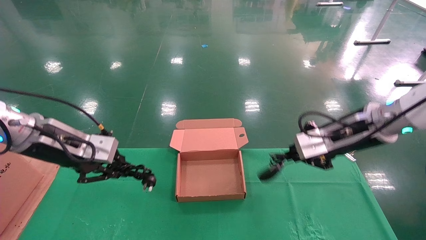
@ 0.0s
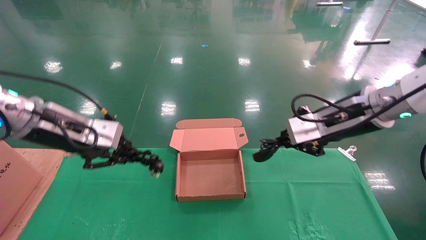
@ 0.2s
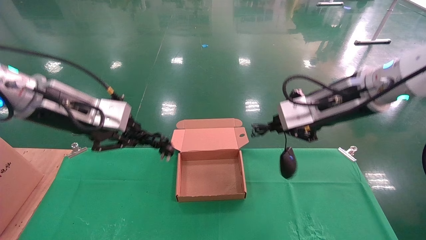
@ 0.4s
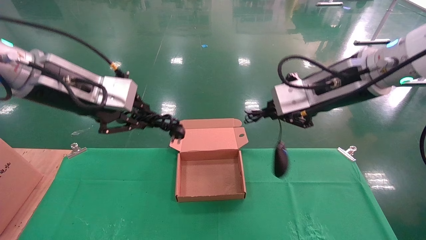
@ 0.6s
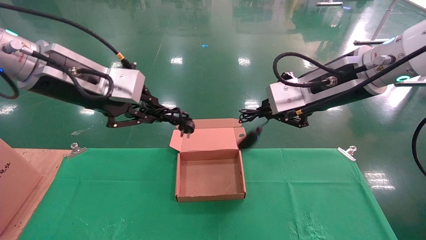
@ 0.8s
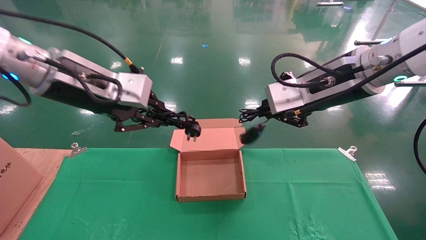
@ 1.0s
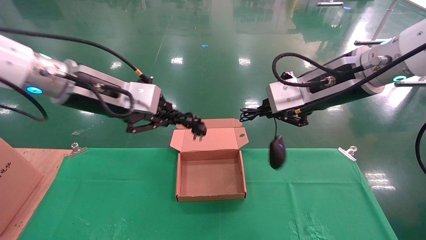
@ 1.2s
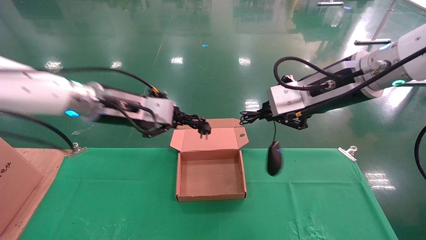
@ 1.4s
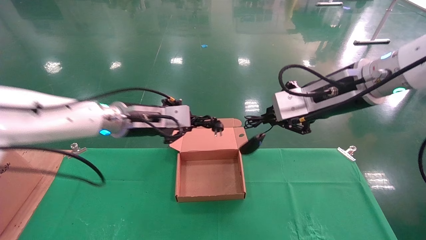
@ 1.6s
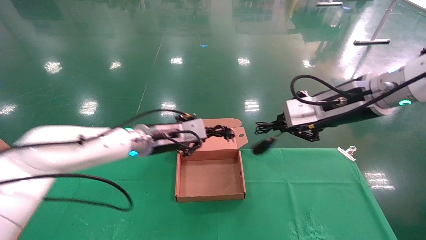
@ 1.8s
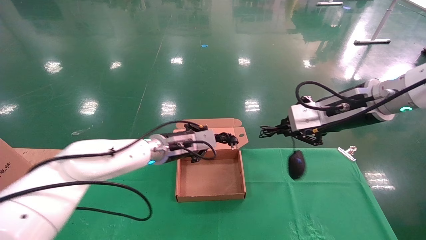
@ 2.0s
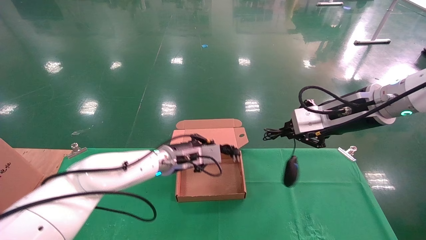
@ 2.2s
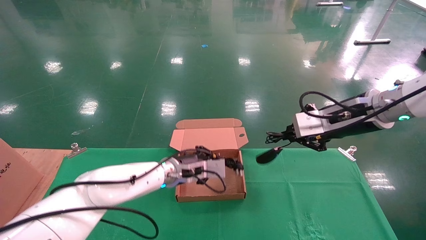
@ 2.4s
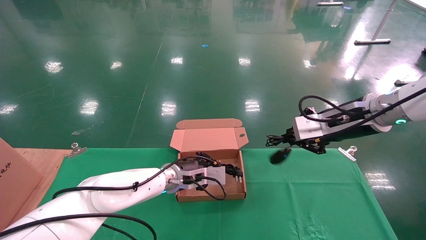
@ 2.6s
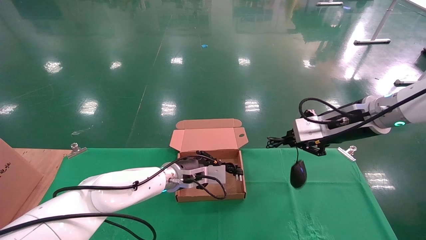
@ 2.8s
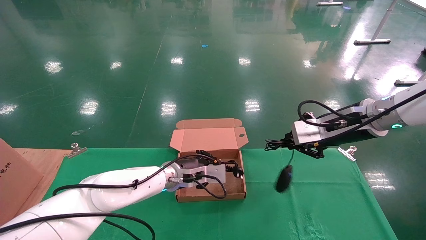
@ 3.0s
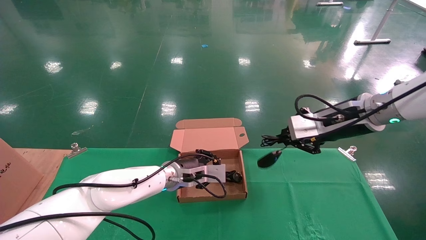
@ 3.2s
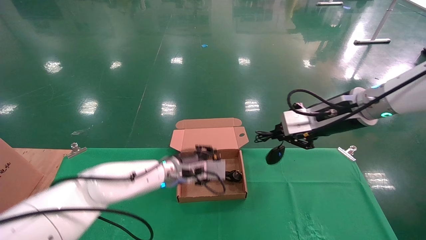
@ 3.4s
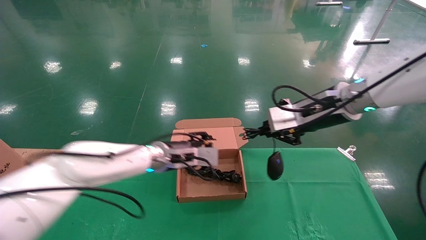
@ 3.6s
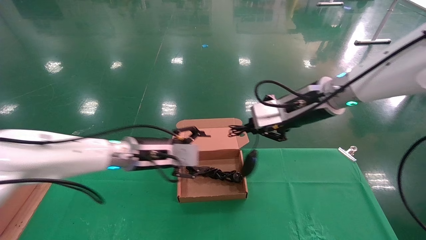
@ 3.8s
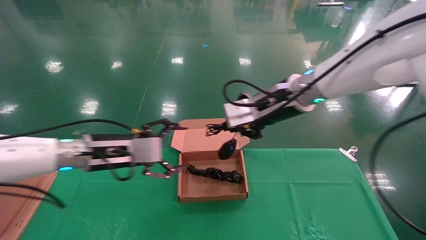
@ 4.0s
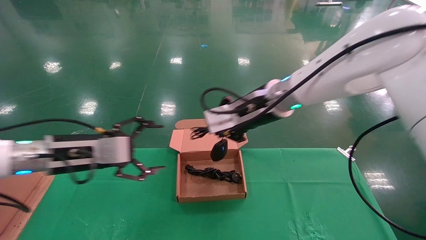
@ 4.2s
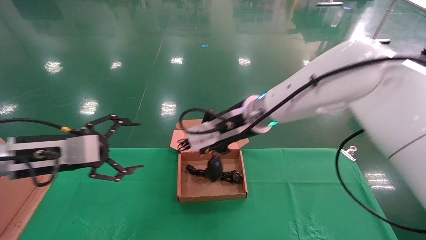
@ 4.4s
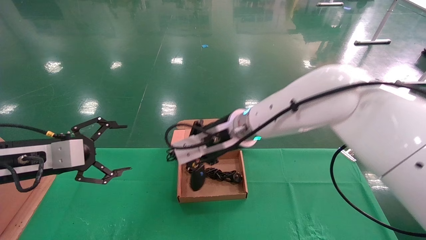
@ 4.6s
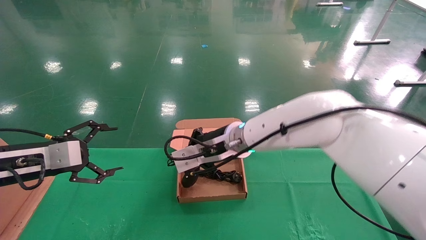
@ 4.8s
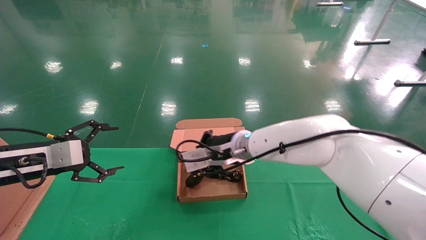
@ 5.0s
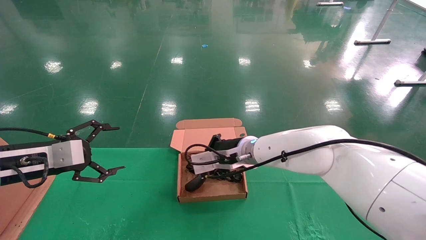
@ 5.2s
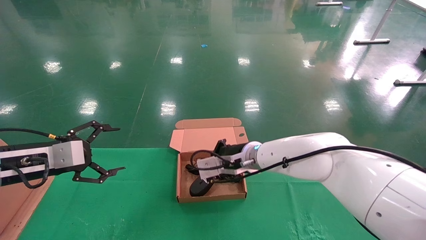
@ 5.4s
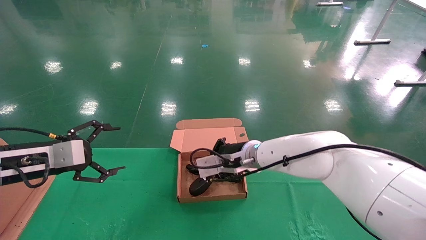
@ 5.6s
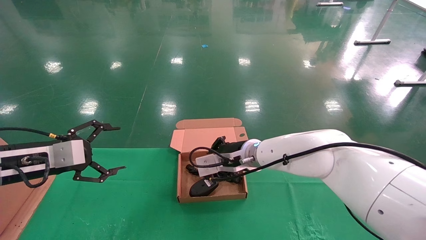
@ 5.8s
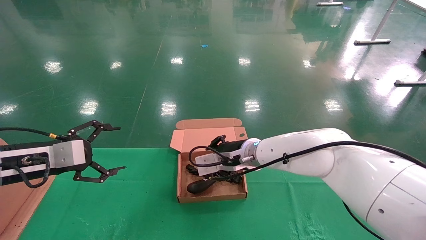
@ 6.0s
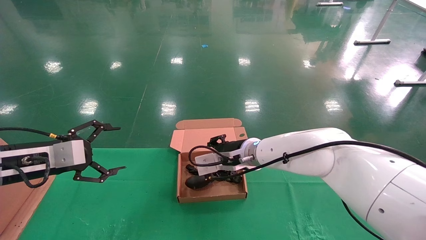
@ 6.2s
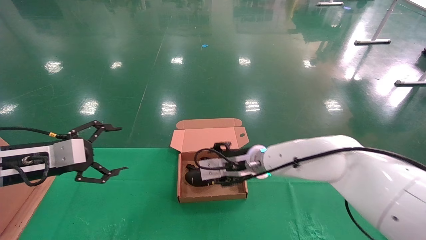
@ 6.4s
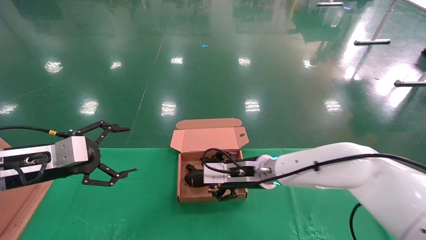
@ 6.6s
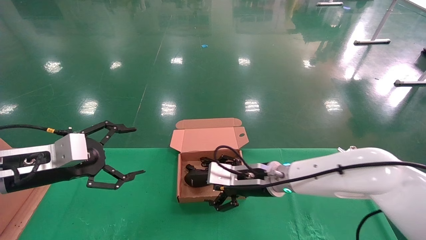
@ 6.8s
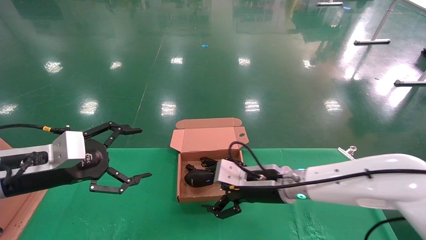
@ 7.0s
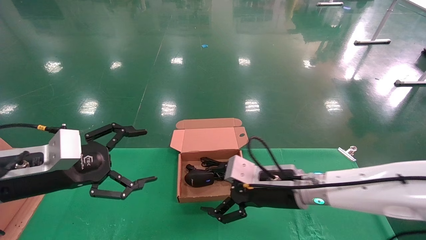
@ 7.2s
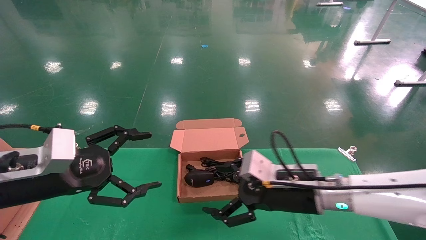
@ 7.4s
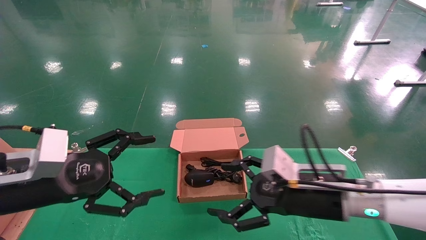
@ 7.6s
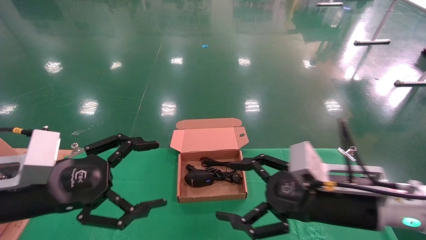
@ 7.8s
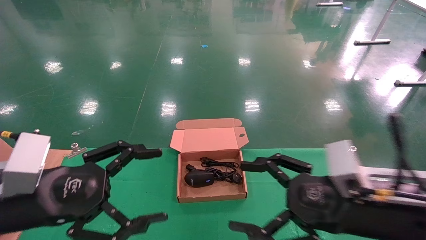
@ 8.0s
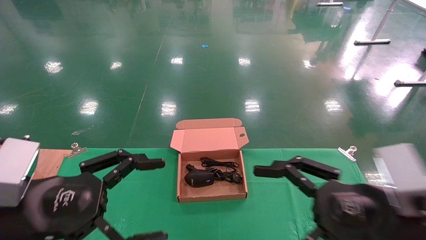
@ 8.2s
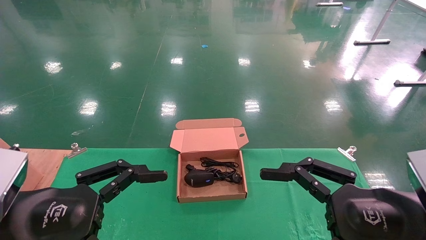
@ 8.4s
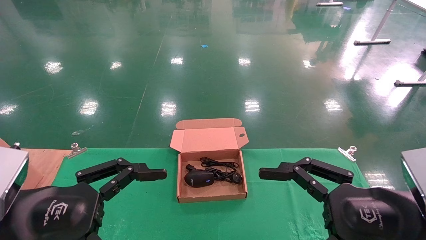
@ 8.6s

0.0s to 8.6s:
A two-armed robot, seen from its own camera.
Step, 0.0s to 5.8s: Place the mouse and power cord into the box.
0.0s to 1.4s: The left gripper heads to the right, covering about 10 cm. The right gripper travels upward and to the left by roughly 10 cm.
1.4s to 2.8s: The right gripper heads downward, to the right and forward, covering some 10 cm, while the left gripper moves downward, to the right and forward, about 25 cm.
2.8s to 4.4s: The right gripper heads to the left, covering approximately 20 cm. Meanwhile the left gripper heads to the left, backward and upward, covering approximately 30 cm, and opens up.
4.4s to 5.8s: The right gripper is displaced downward and forward by approximately 15 cm; the left gripper moves to the left, about 5 cm.
5.8s to 7.2s: The left gripper travels to the right and backward by approximately 10 cm, while the right gripper goes approximately 15 cm backward and to the right, and opens up.
7.2s to 8.6s: The left gripper travels backward by approximately 10 cm. Meanwhile the right gripper goes approximately 20 cm backward and to the right.
